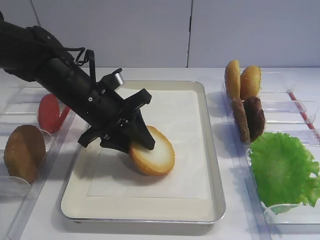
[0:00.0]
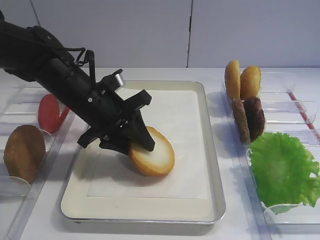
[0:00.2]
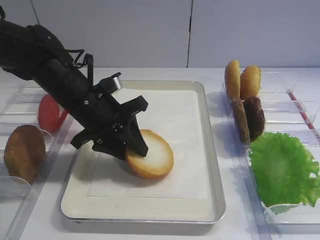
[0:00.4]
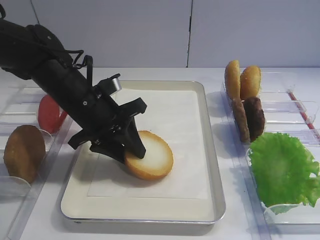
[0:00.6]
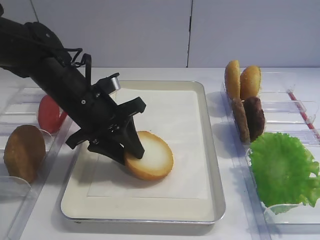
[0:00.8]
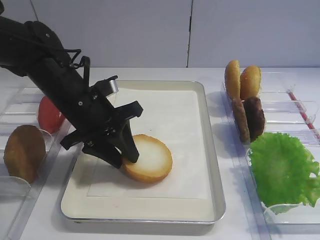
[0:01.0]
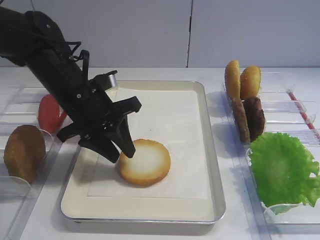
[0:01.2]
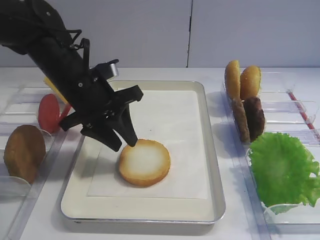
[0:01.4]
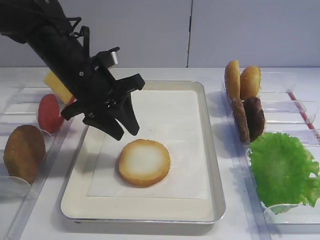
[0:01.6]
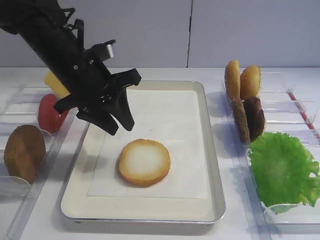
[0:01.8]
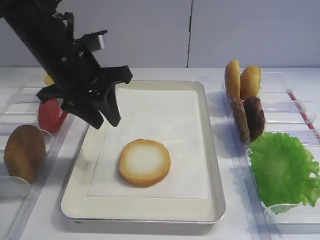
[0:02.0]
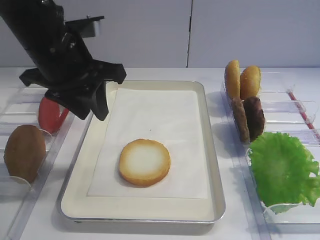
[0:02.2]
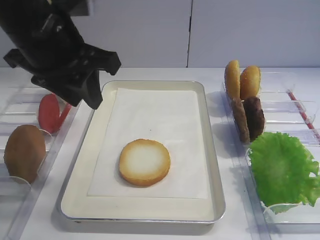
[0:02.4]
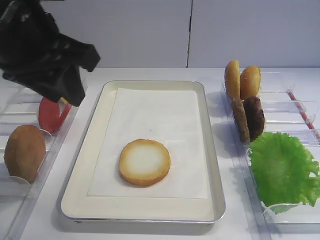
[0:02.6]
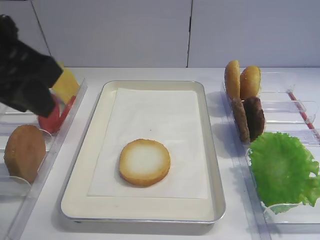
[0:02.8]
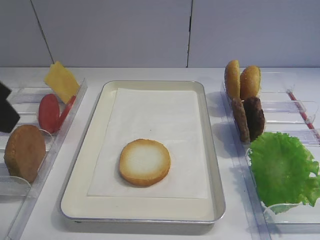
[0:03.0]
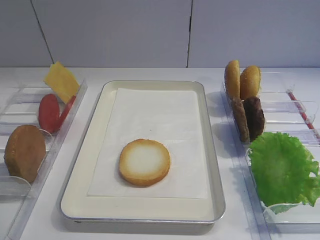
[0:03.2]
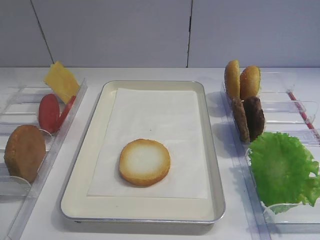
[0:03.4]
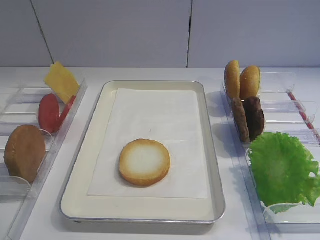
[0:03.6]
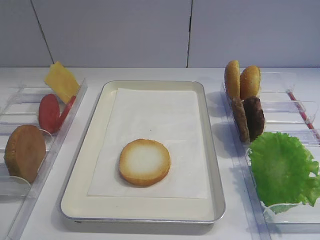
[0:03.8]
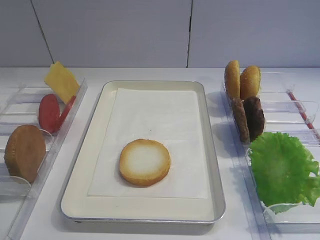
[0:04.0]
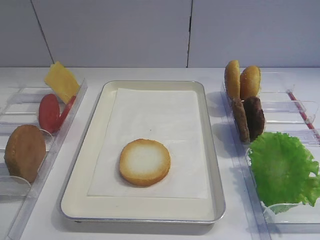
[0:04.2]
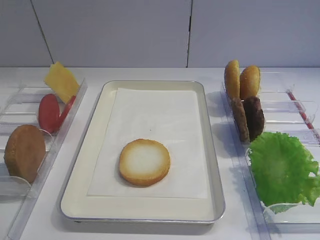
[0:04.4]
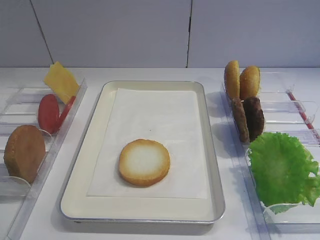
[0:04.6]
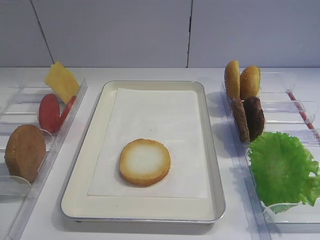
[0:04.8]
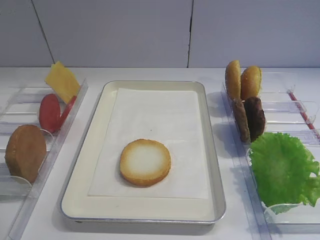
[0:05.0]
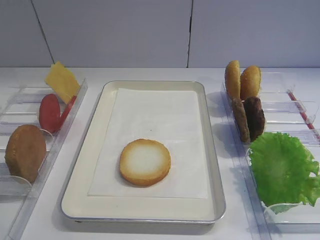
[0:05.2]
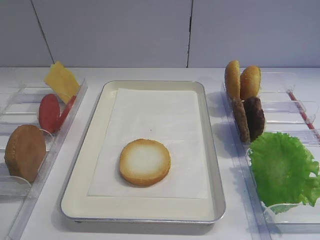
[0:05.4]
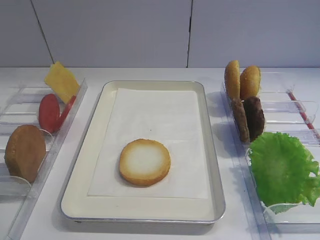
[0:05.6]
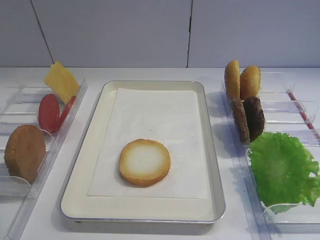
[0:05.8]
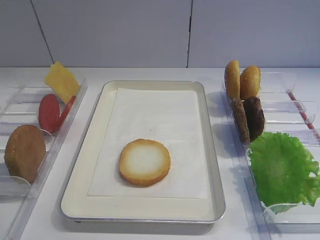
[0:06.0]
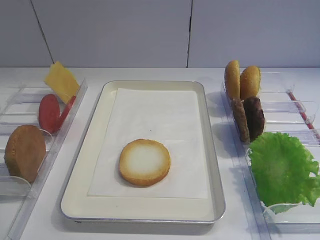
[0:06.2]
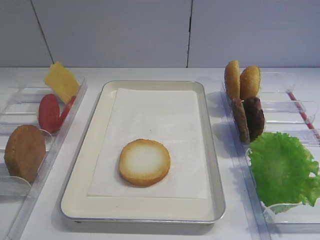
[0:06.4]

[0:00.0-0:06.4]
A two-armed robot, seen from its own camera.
0:00.0 to 0:01.6: There are only small adjustments of the grippers.
0:01.6 to 0:03.2: The left gripper moves backward, upward and to the left, approximately 25 cm.

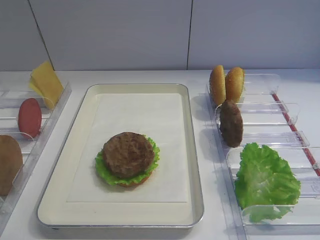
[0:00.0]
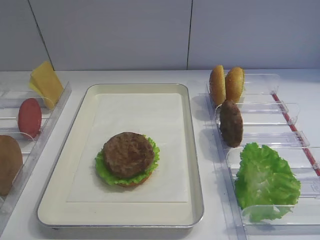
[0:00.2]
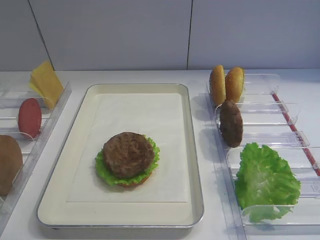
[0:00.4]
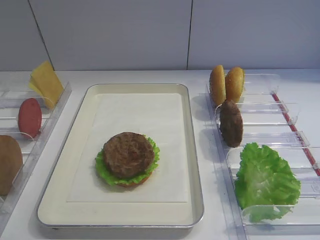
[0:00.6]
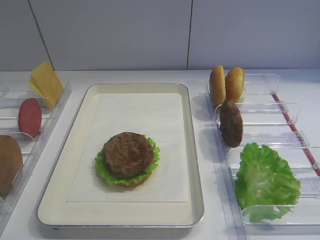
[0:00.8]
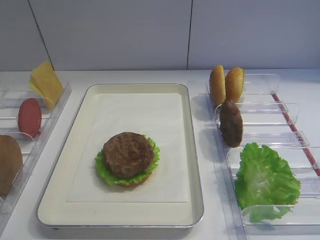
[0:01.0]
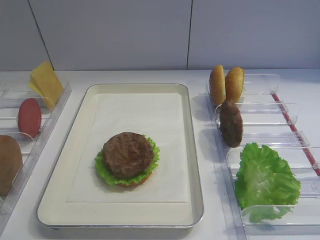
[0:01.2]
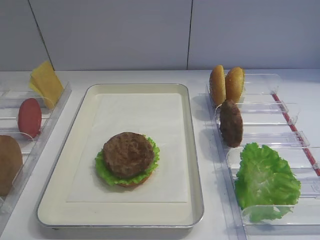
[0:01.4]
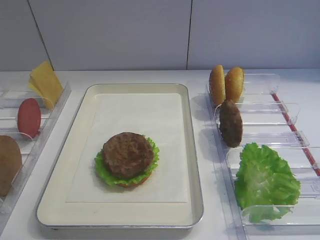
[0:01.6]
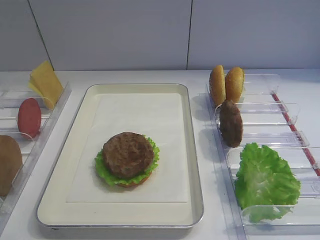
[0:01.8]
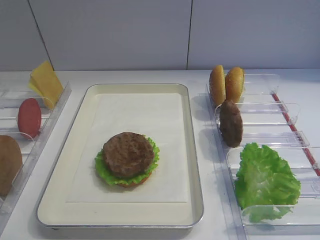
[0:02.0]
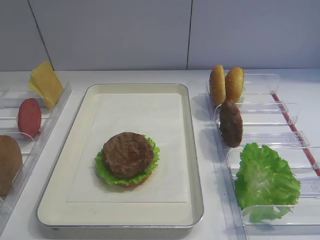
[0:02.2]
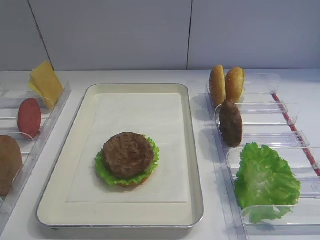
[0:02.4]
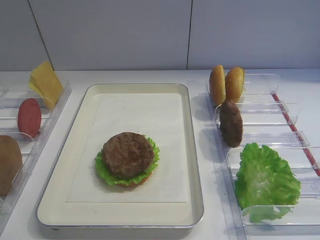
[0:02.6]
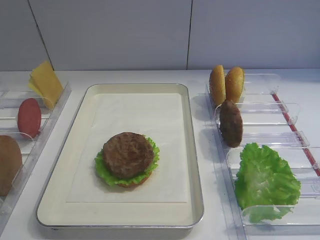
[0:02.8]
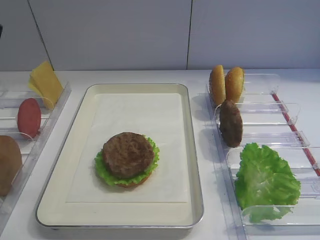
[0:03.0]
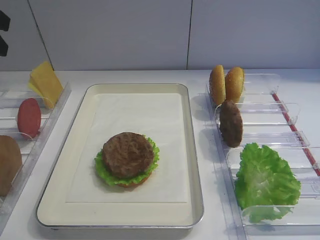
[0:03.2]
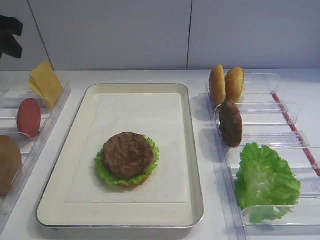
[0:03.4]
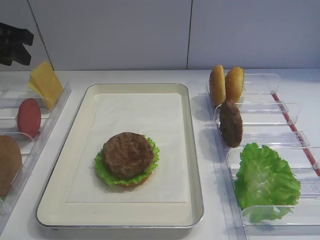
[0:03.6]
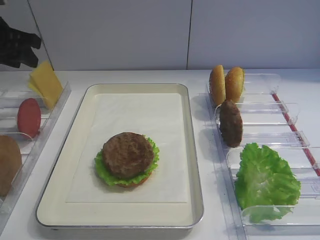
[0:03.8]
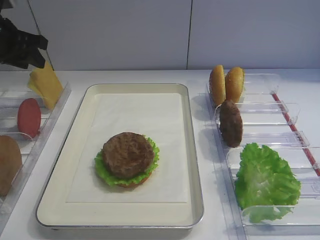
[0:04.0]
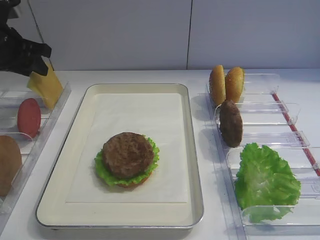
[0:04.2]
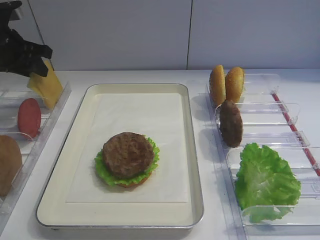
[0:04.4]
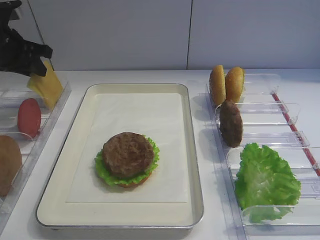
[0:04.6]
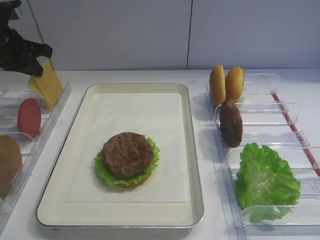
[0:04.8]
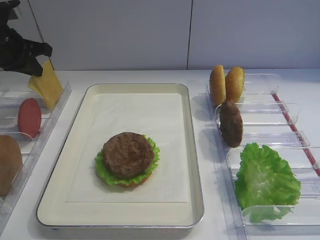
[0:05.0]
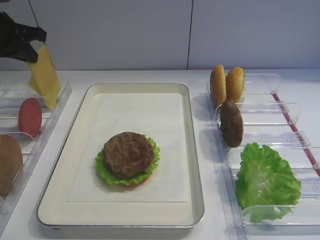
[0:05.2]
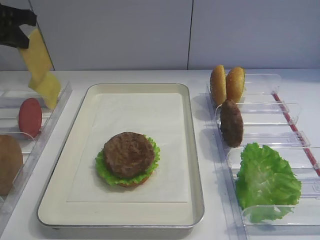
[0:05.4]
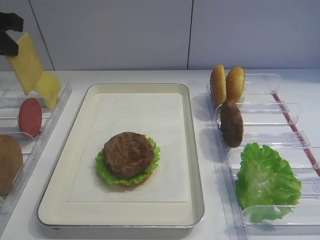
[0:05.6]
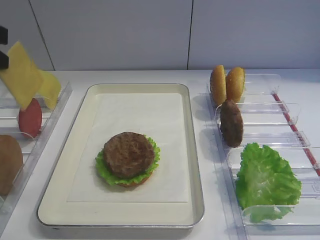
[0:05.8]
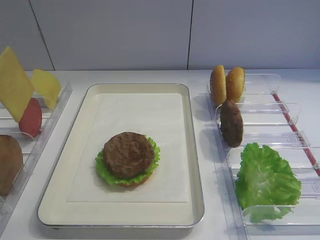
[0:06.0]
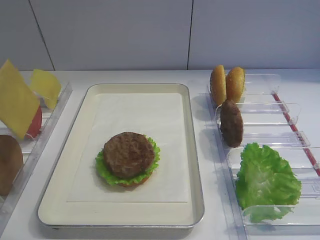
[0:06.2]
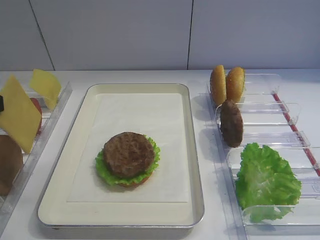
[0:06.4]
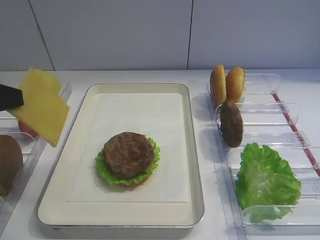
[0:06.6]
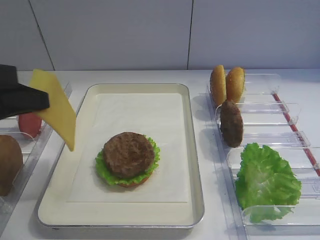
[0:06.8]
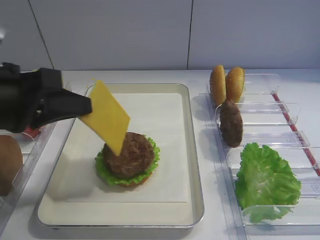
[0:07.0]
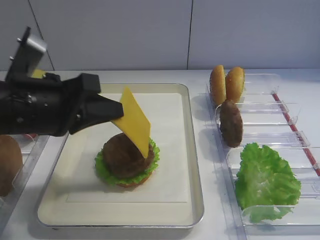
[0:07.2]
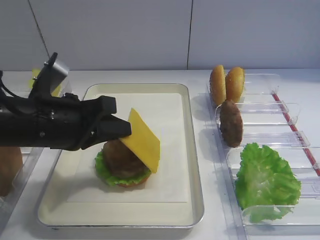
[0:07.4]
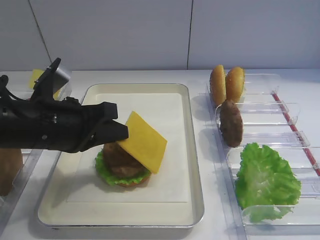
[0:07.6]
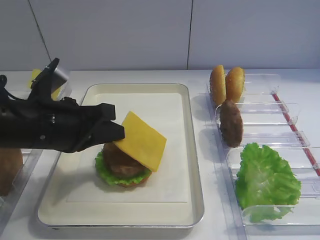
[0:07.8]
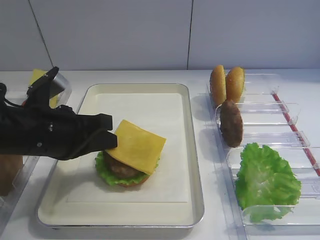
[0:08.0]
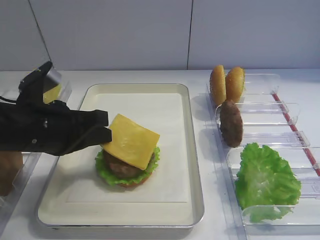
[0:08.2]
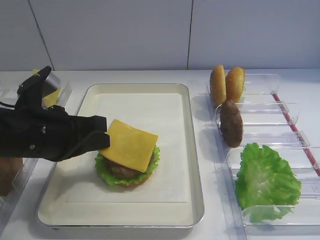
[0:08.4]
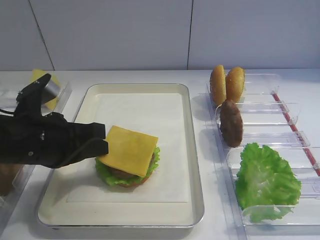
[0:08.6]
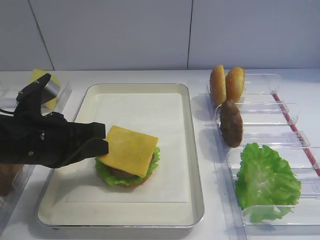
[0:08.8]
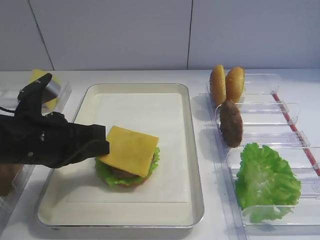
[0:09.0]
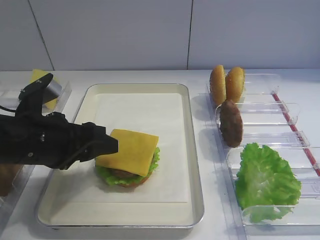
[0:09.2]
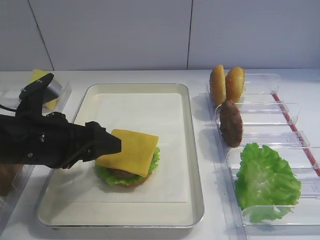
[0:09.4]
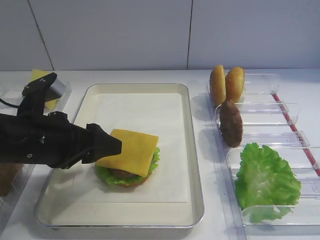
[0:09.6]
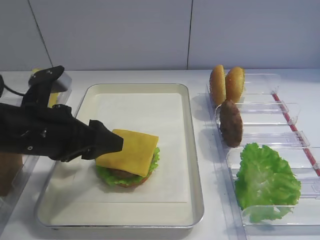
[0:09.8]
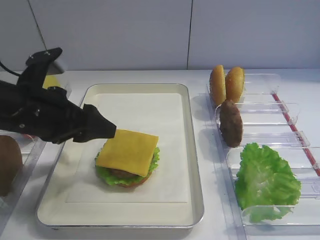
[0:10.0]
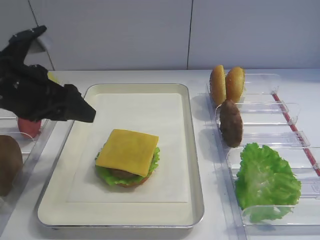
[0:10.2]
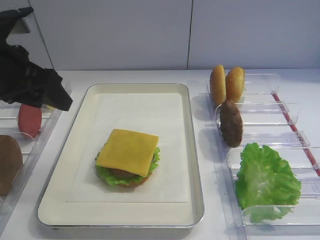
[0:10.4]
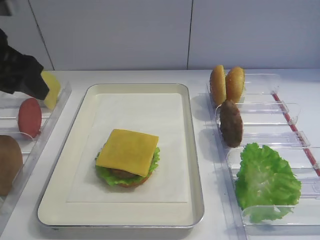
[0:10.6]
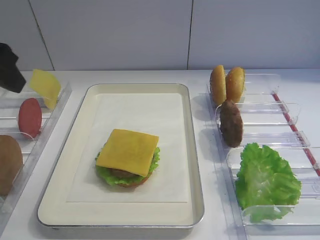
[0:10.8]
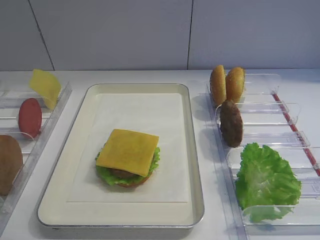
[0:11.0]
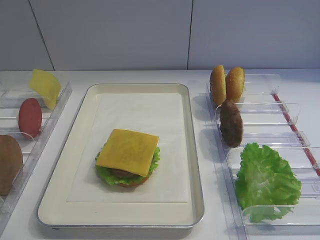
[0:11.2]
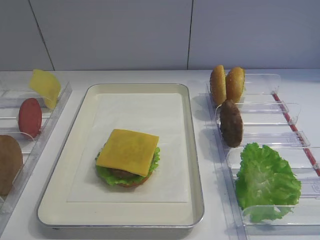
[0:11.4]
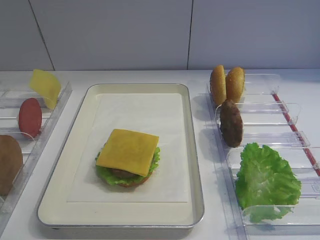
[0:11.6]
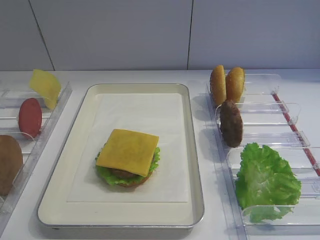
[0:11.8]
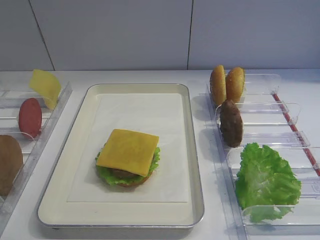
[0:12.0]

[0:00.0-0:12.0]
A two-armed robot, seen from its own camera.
Step, 0:00.0 to 0:05.4: Pick up the cheese slice with the left gripper.
Step, 0:05.6 to 0:09.8: Place the cheese slice on the cutlet with the left gripper.
0:03.0 to 0:04.4: The left gripper heads forward and downward, covering about 20 cm.
0:04.4 to 0:06.0: The left gripper travels backward by about 20 cm, and closes its fingers.
0:06.0 to 0:07.6: The left gripper goes about 15 cm to the right and downward.
0:07.6 to 0:09.0: The grippers stay close to where they were, moving slightly.
0:09.0 to 0:10.4: The left gripper heads upward, to the left and forward, covering roughly 10 cm, and opens up.
0:10.4 to 0:12.0: The left gripper travels backward by approximately 25 cm.

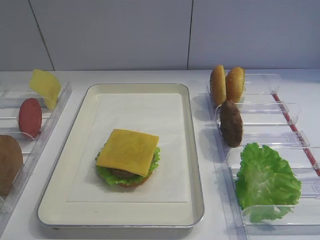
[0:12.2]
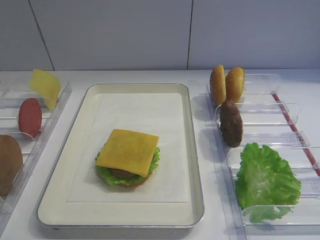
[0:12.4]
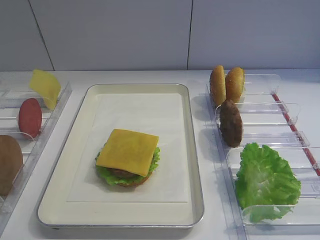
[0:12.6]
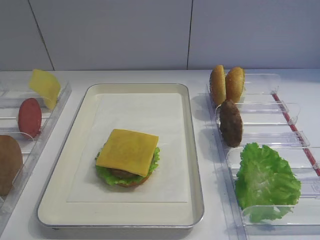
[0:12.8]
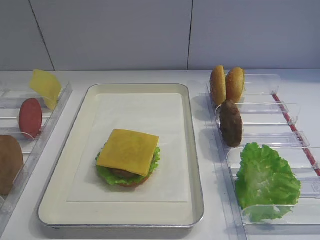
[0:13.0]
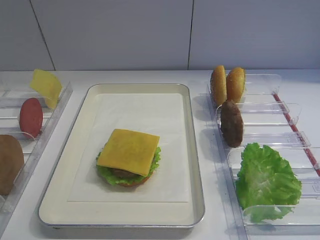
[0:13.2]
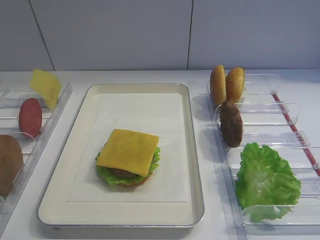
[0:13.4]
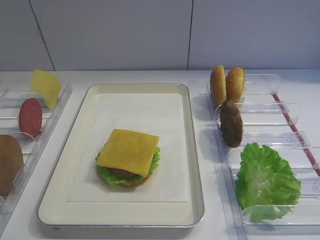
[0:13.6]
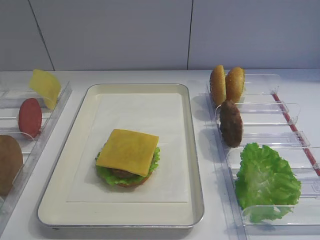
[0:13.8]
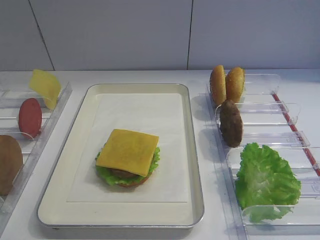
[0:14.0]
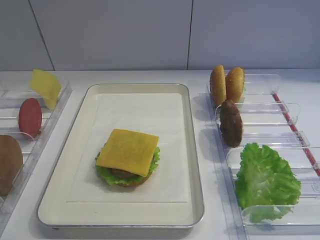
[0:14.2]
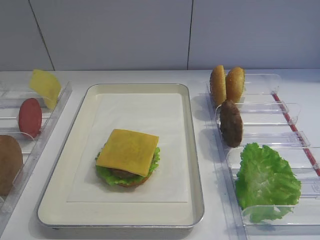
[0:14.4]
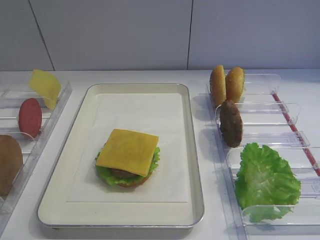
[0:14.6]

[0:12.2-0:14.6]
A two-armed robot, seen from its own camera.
0:13.4 to 0:14.6: Both grippers stay put.

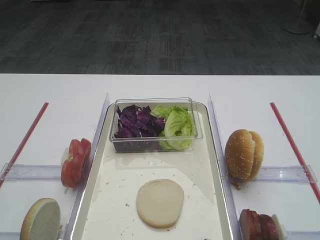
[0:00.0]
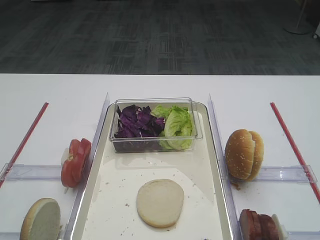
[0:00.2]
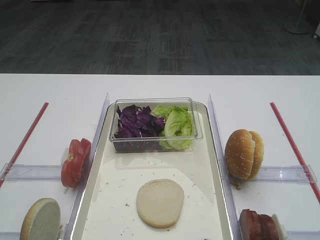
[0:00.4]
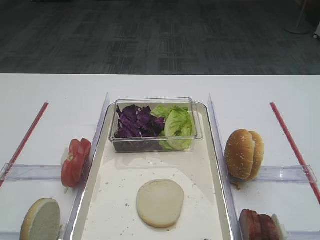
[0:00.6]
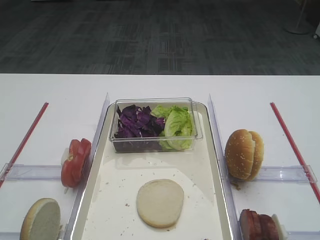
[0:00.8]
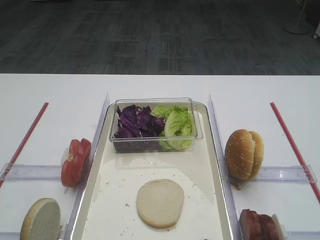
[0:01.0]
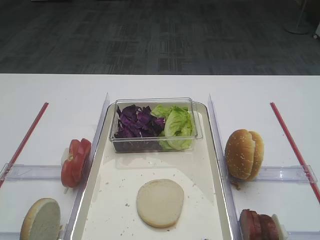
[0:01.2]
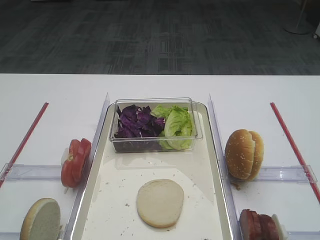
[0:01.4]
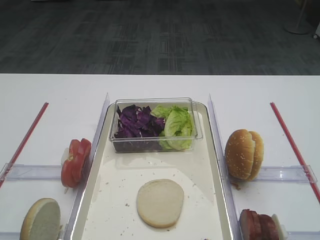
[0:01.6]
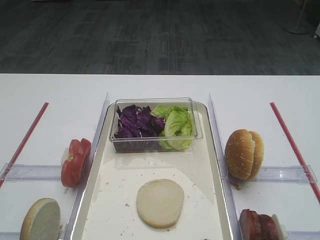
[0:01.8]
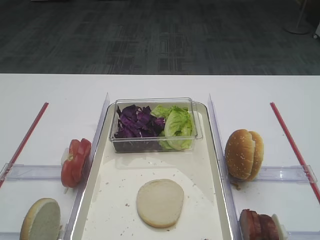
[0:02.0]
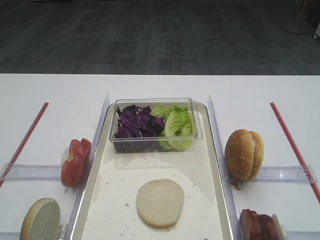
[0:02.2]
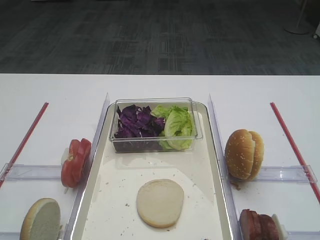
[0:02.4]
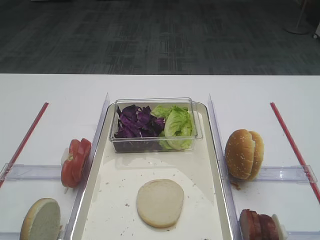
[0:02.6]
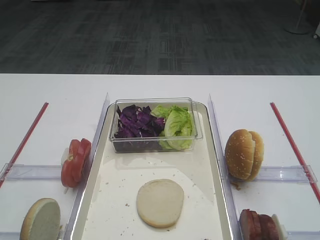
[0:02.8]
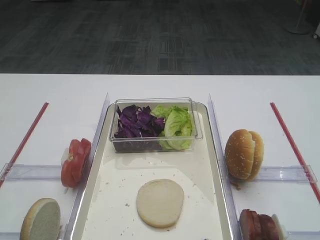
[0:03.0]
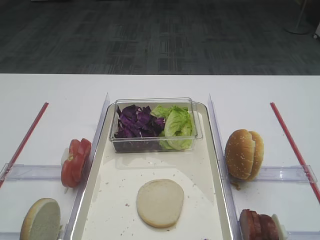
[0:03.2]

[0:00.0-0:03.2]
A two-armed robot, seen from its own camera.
0:01.6 to 0:03.2: Both grippers stay about where they are.
